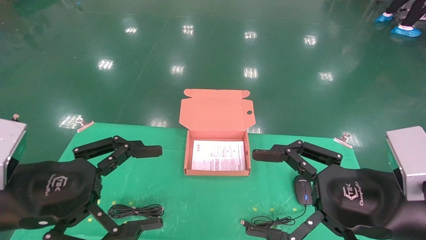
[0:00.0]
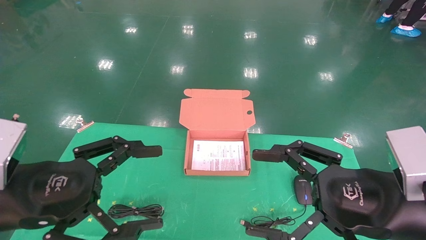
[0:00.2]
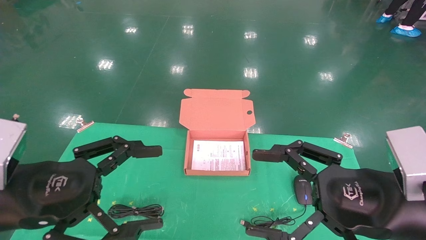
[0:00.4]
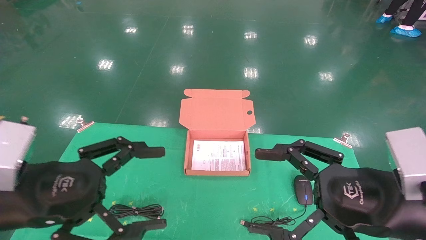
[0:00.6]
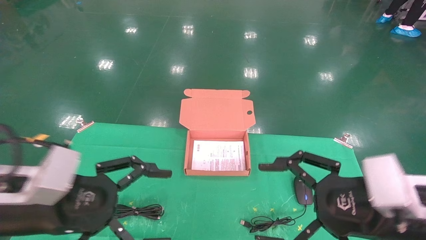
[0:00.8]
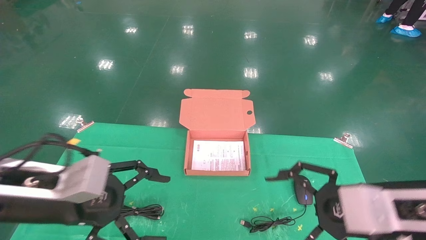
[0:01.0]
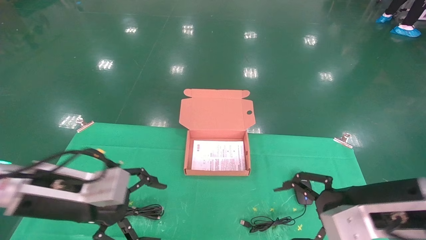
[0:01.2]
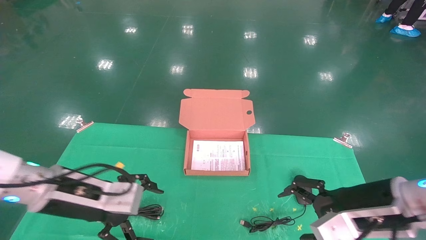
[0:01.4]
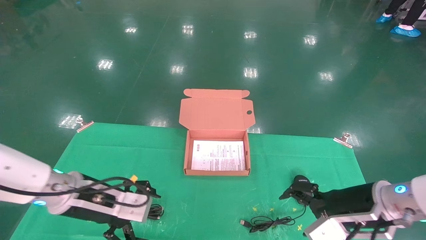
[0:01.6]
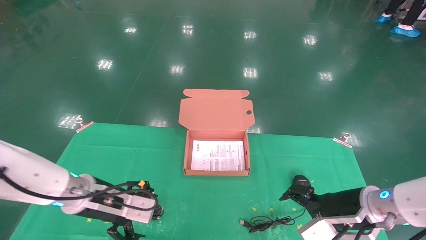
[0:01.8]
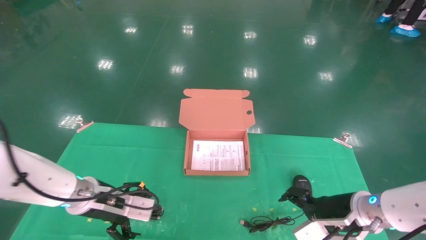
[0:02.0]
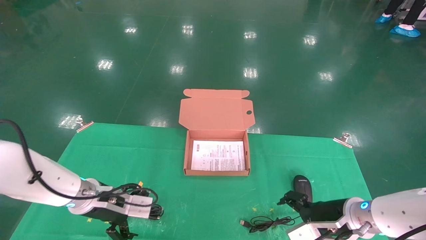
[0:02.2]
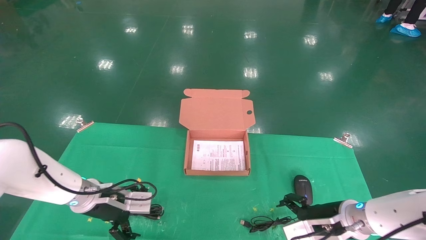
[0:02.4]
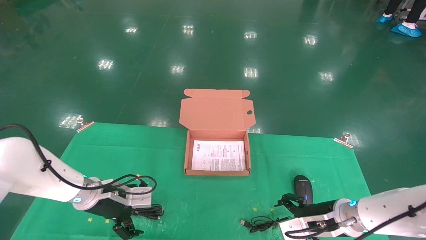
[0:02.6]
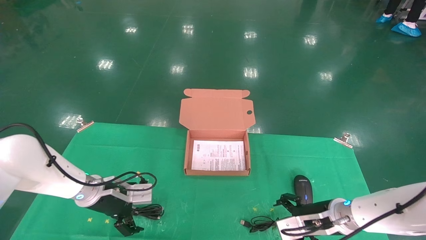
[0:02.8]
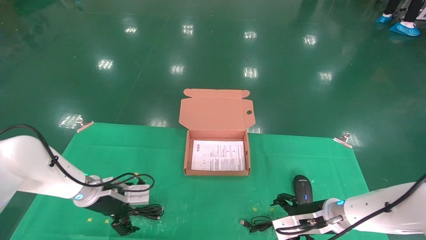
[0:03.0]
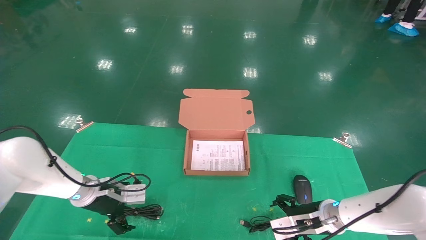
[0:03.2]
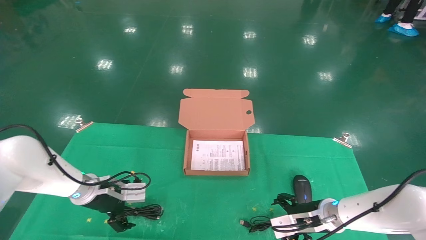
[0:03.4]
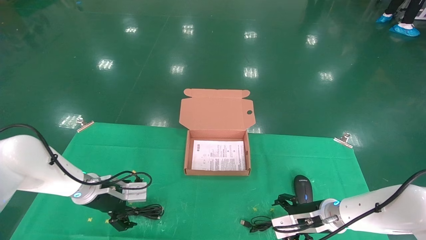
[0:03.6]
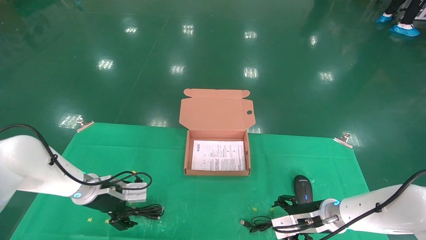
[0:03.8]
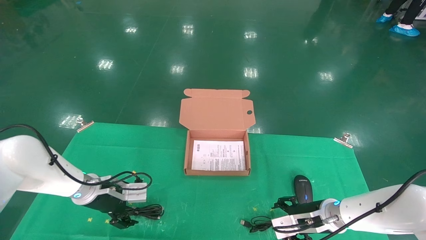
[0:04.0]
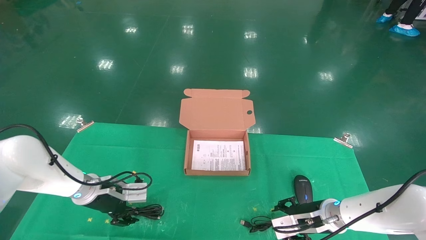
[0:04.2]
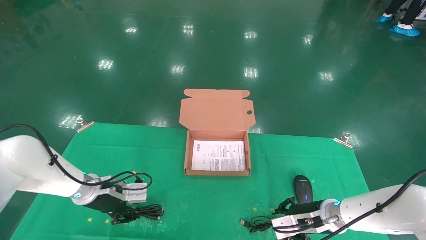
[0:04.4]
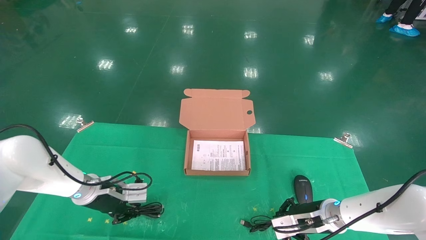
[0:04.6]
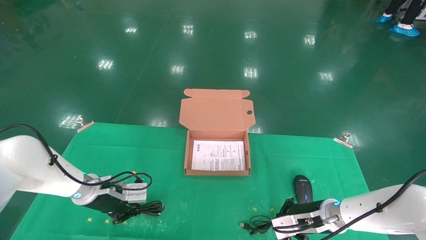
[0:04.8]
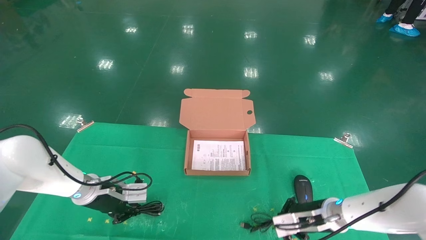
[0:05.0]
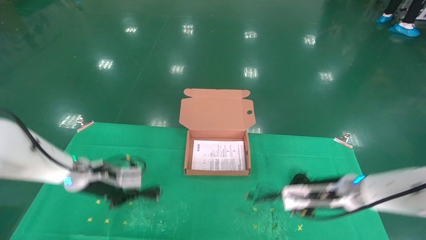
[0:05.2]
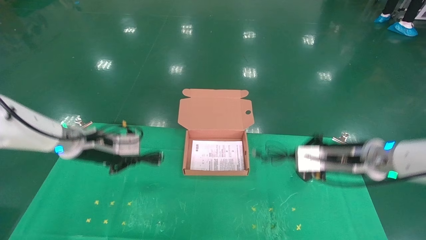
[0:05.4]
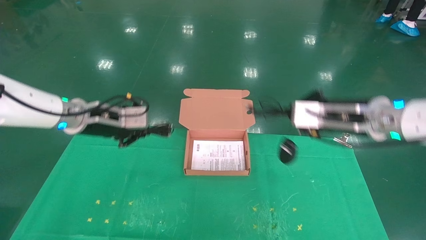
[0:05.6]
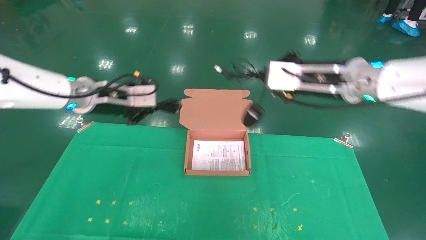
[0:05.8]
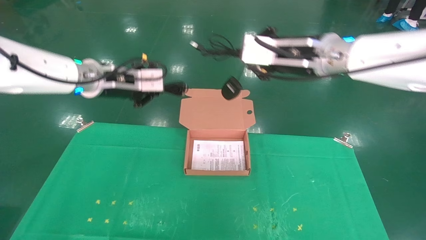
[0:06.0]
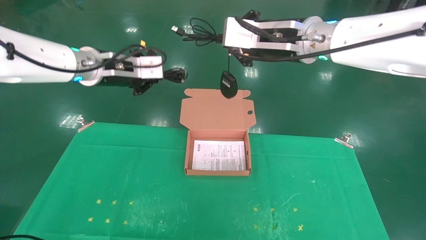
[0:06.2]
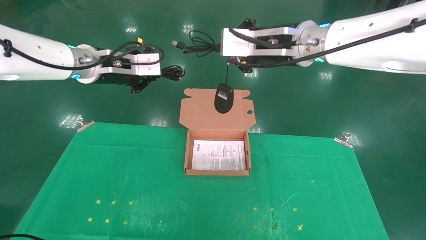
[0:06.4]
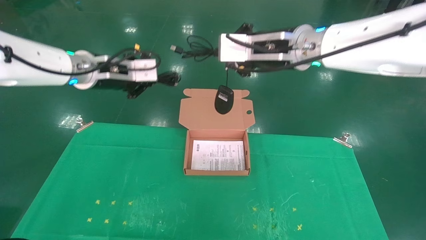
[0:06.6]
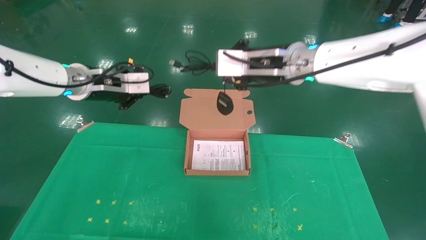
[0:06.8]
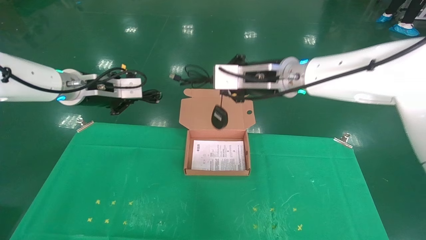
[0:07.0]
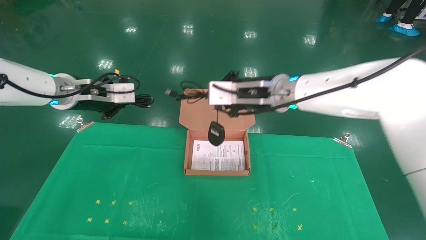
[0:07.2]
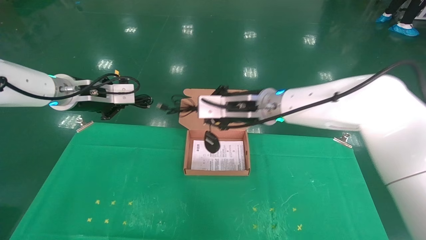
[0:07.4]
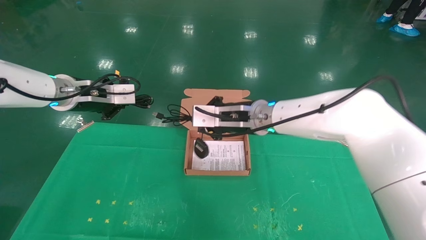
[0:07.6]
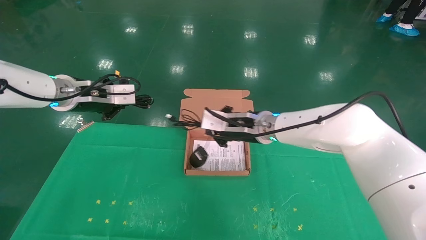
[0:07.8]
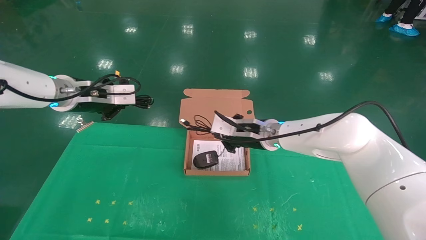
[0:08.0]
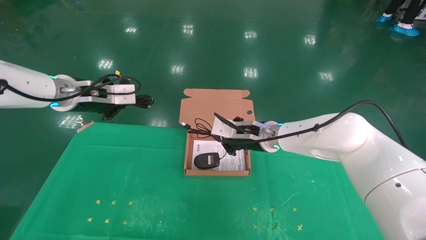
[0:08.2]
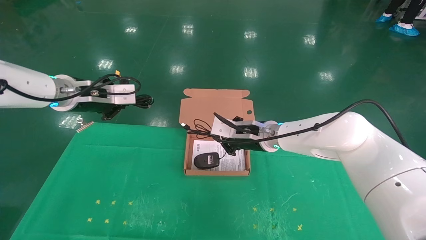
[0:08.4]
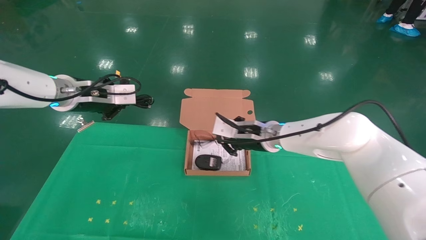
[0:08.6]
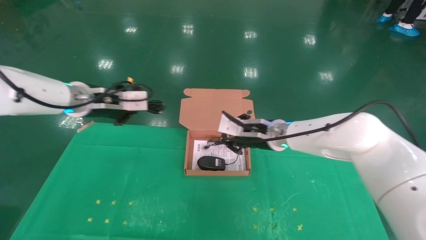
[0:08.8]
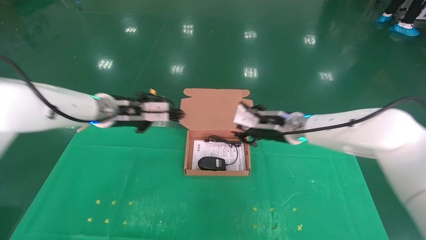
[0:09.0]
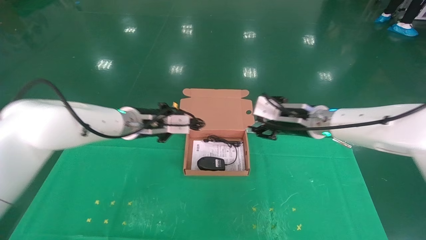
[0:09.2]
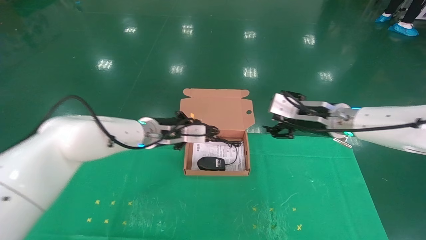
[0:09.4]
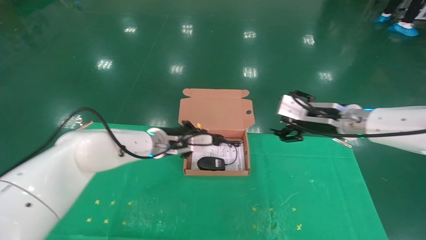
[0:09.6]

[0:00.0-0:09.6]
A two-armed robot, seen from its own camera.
Task of the whole recording: grasp data cable left put into box grasp mouse right put into box.
Step, 0:01.0 to 0:04.6: Grab and pick up both the mouse and power cord from the accessory packaging area at the same time.
0:00.0 to 0:01.6: The two grippers go approximately 15 cm forward and downward.
0:01.6 to 0:03.2: The right gripper moves downward and forward, some 15 cm, while the left gripper goes roughly 15 cm forward and downward.
0:03.2 to 0:04.8: The right gripper closes, while the left gripper closes up.
0:04.8 to 0:06.4: Both grippers travel together upward, about 30 cm.
0:06.4 to 0:08.0: The right gripper is displaced downward and forward by roughly 20 cm; the left gripper heads to the left, covering approximately 5 cm.
0:08.0 to 0:09.6: The left gripper heads to the right and downward, covering roughly 20 cm, while the right gripper is displaced to the right by approximately 15 cm, and opens its fingers.

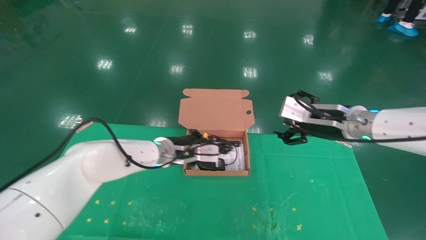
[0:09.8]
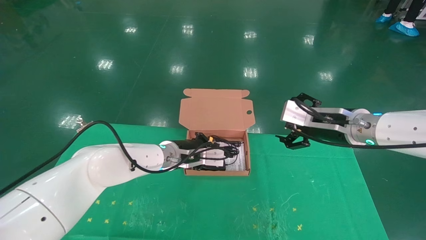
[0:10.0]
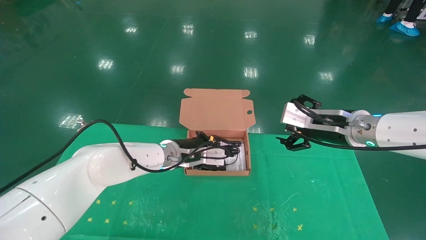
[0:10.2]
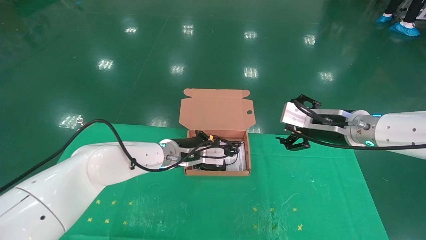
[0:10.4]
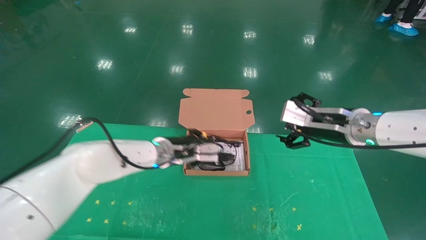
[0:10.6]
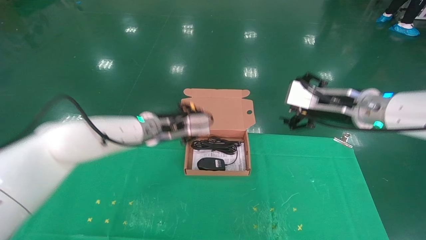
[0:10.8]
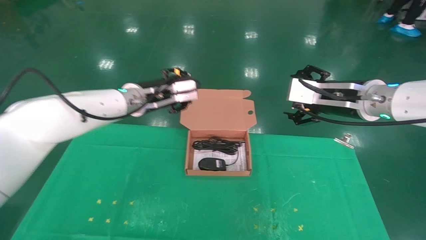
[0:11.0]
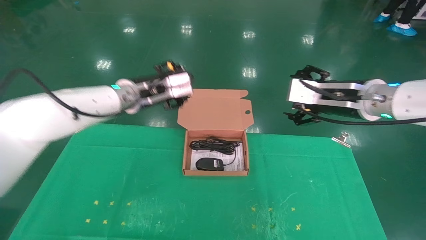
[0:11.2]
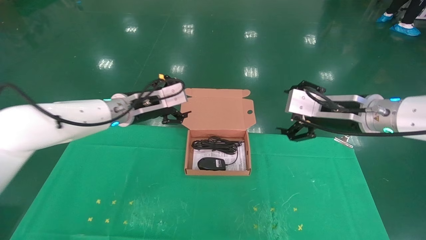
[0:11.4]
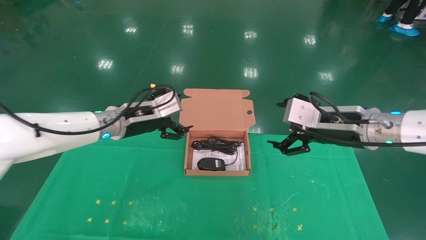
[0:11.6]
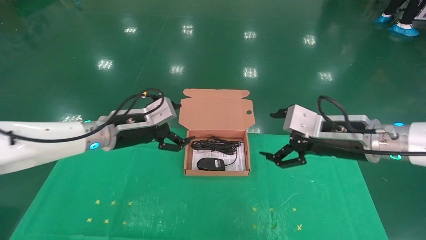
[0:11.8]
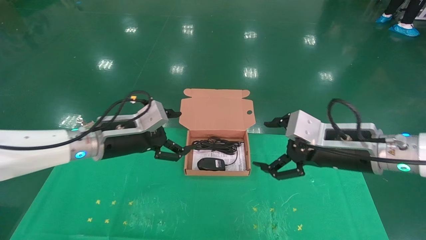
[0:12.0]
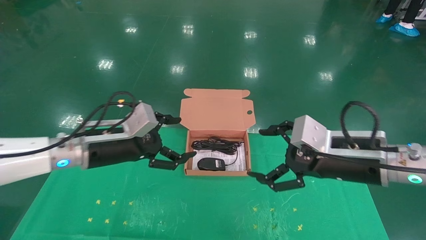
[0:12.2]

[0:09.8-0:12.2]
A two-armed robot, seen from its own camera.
Task of the whole recording: grasp data cable left put into box grasp mouse right put into box.
0:09.8 to 0:11.0: The right gripper ends up about 5 cm from where it was. The left gripper moves upward, roughly 10 cm, and opens.
0:11.0 to 0:12.2: The left gripper heads backward and to the left, covering about 10 cm, and opens, while the right gripper shifts some 10 cm downward and backward.

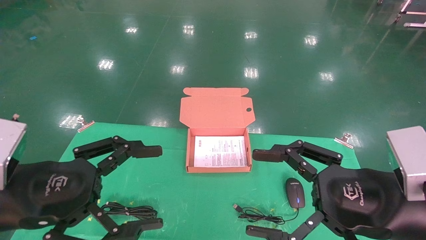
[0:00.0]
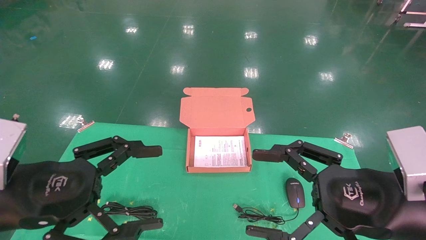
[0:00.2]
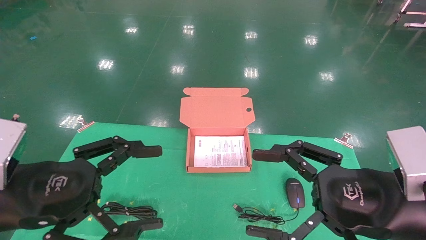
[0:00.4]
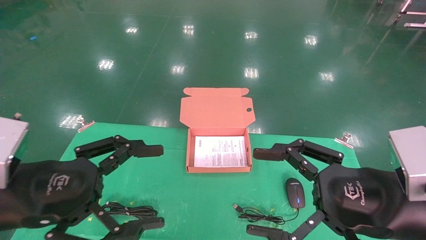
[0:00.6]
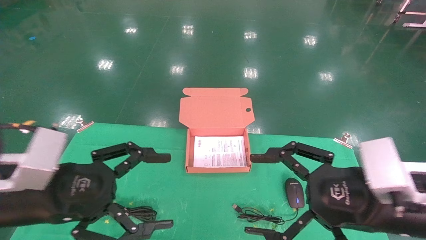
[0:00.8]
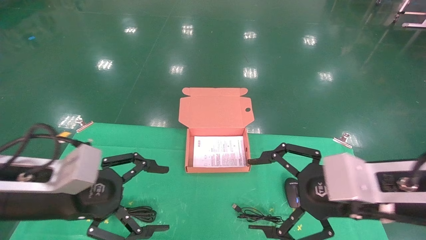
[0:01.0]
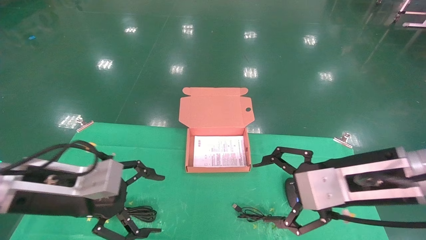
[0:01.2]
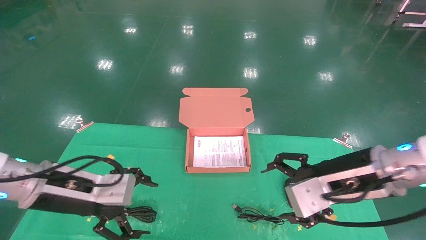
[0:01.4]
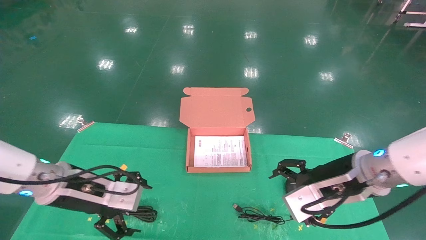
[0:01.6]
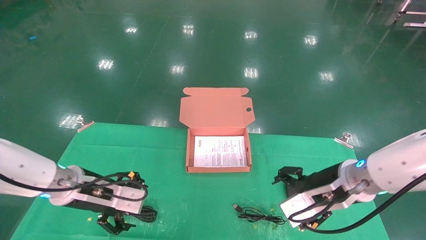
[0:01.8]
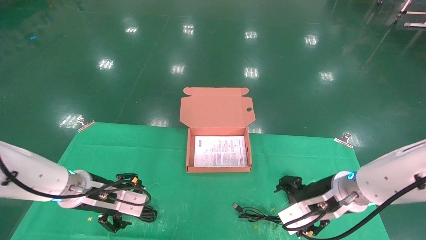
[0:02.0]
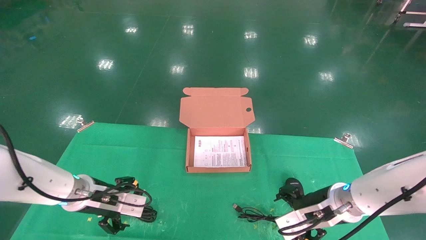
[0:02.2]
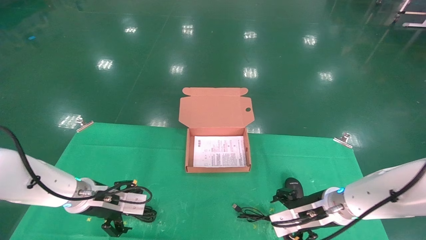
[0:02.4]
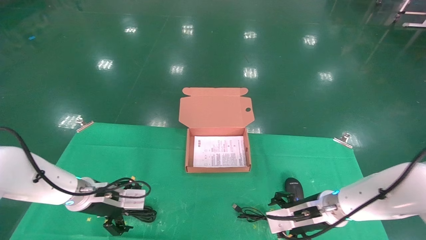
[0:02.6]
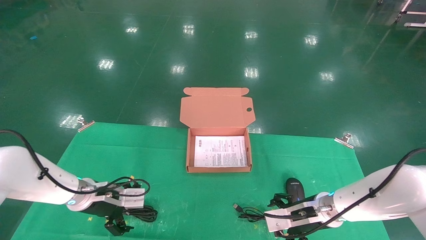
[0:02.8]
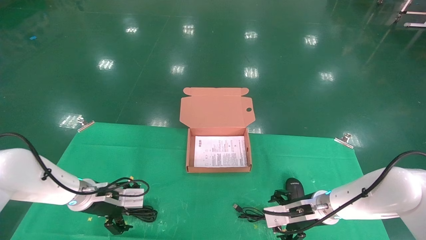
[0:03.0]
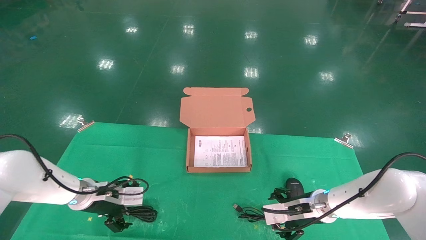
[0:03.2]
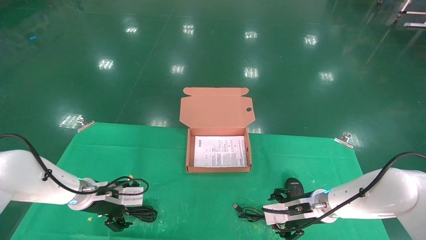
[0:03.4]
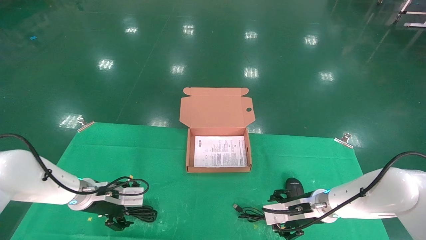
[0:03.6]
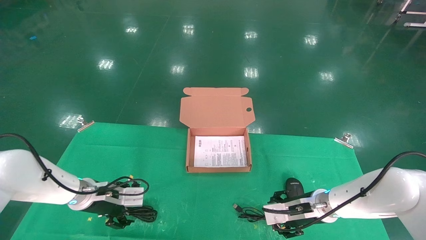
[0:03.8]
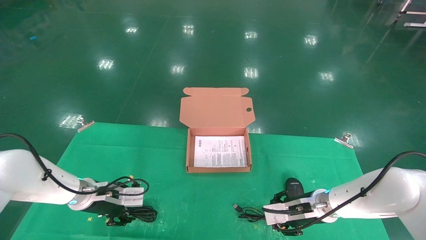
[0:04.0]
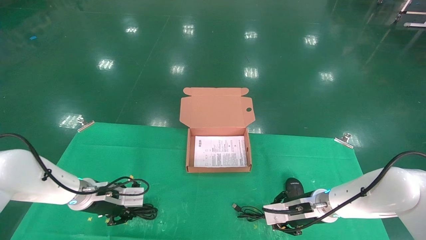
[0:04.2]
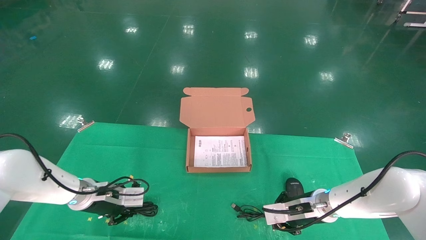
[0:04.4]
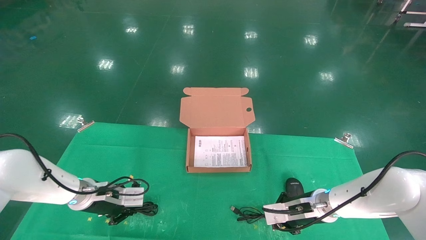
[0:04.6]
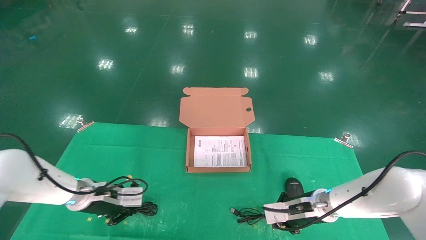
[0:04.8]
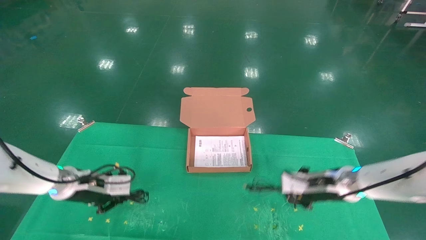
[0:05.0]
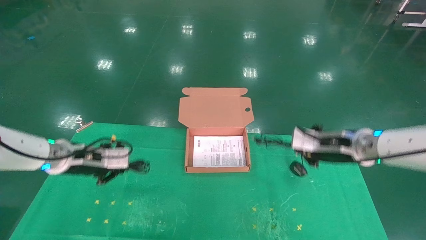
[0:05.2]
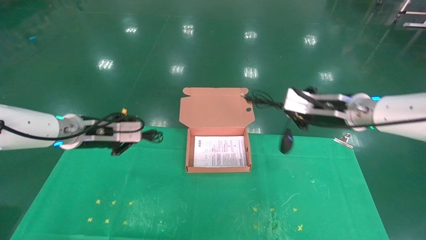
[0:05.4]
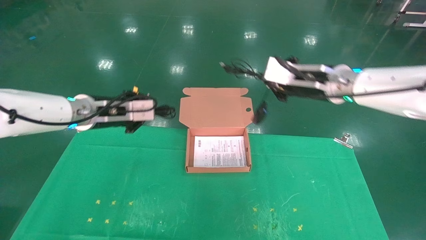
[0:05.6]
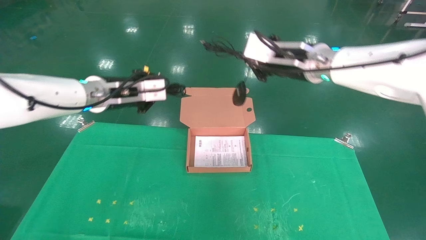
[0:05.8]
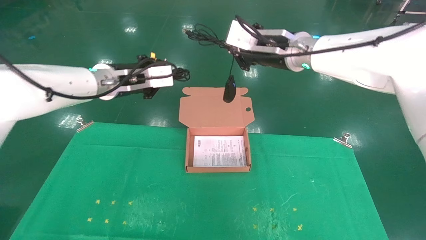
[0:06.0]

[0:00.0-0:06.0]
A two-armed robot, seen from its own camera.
Task of the whole recording: grasp data cable left put into box grasp mouse right put into box.
Step, 0:01.0 to 0:05.2: Grab and pick up both the mouse and power cord from the accessory packaging area at the same time.
0:00.0 to 0:01.6: The left gripper heads forward and downward, covering some 15 cm. Meanwhile the right gripper travels forward by roughly 10 cm.
0:01.6 to 0:03.0: The right gripper shifts approximately 20 cm downward and forward. The left gripper is displaced forward and downward by some 15 cm.
0:03.0 to 0:04.4: The left gripper closes its fingers. The right gripper closes.
0:04.4 to 0:06.0: The grippers both shift upward by about 30 cm.
